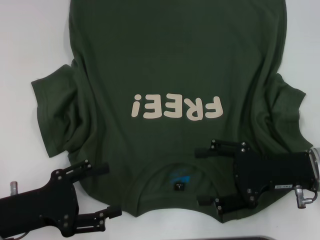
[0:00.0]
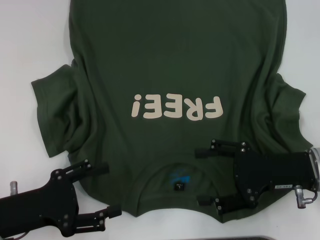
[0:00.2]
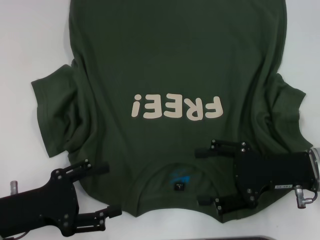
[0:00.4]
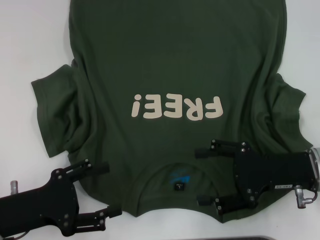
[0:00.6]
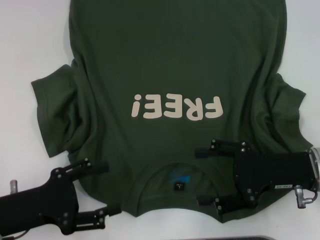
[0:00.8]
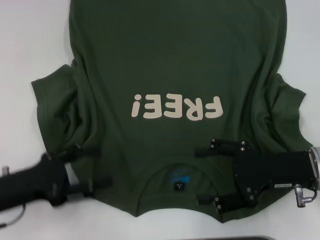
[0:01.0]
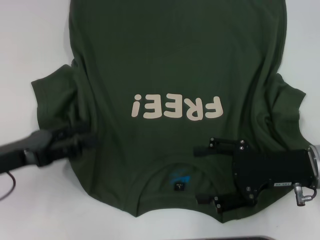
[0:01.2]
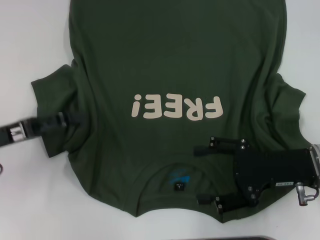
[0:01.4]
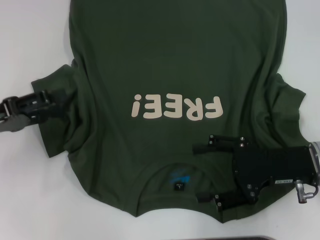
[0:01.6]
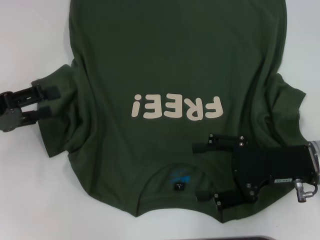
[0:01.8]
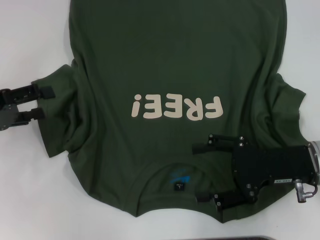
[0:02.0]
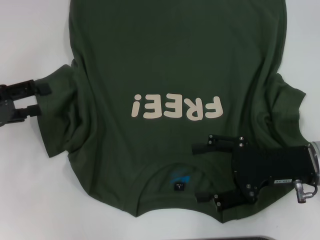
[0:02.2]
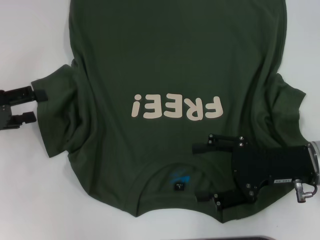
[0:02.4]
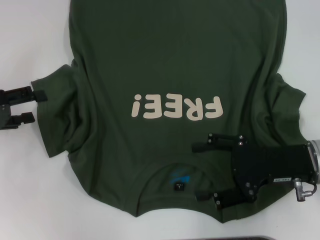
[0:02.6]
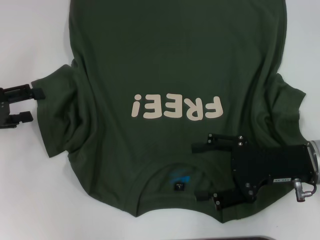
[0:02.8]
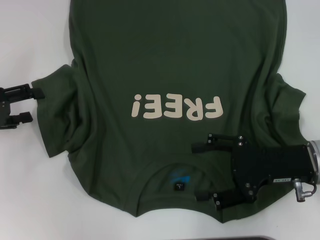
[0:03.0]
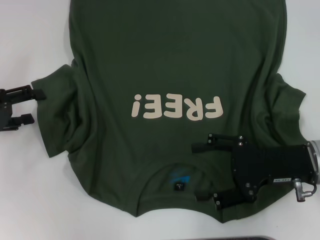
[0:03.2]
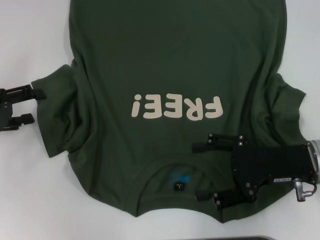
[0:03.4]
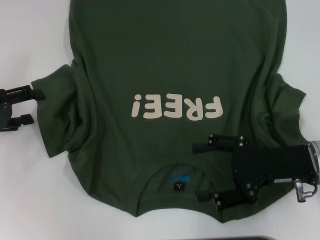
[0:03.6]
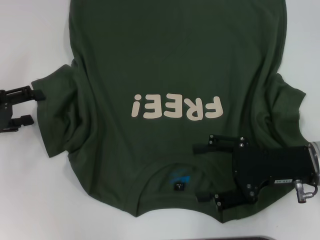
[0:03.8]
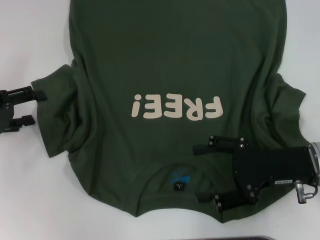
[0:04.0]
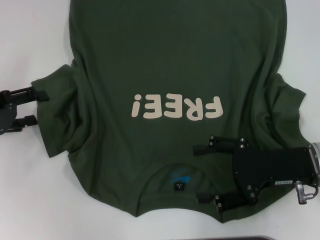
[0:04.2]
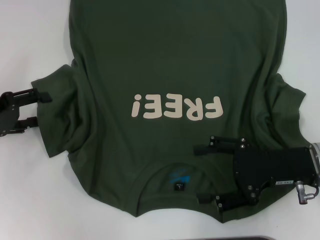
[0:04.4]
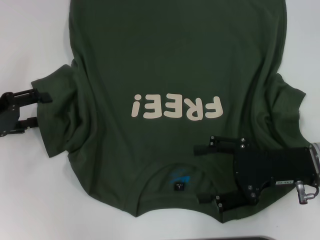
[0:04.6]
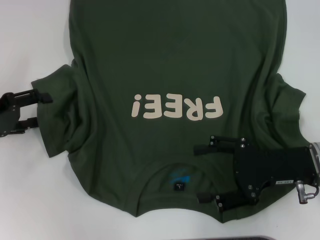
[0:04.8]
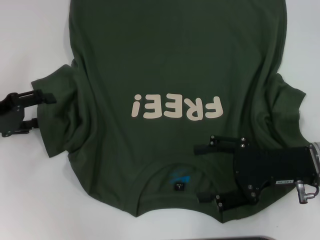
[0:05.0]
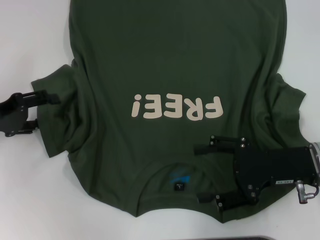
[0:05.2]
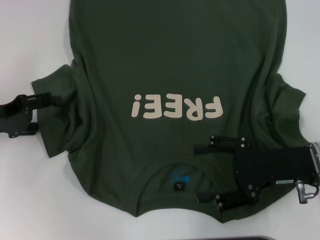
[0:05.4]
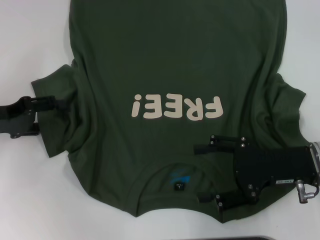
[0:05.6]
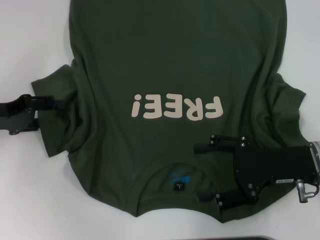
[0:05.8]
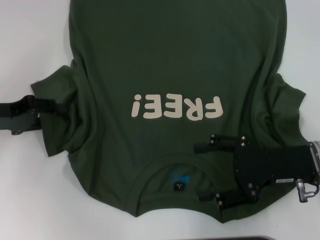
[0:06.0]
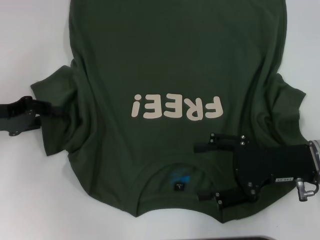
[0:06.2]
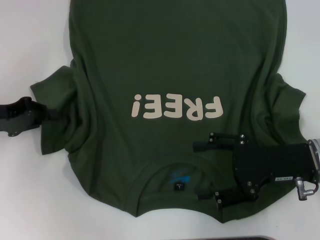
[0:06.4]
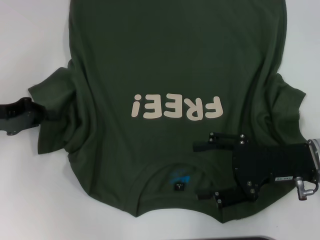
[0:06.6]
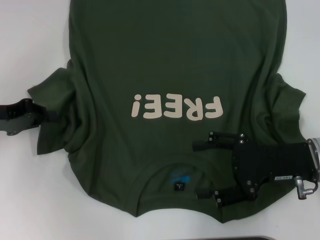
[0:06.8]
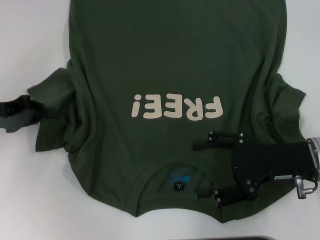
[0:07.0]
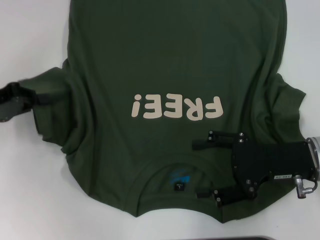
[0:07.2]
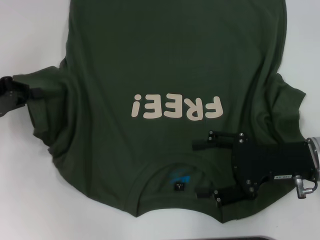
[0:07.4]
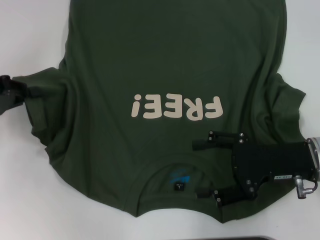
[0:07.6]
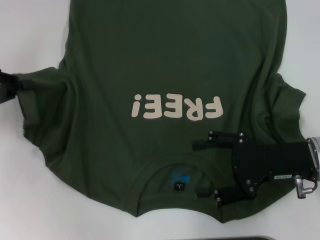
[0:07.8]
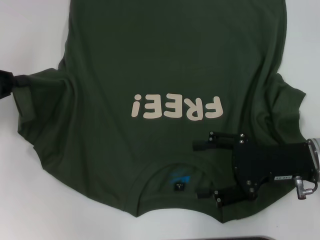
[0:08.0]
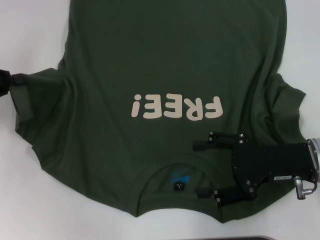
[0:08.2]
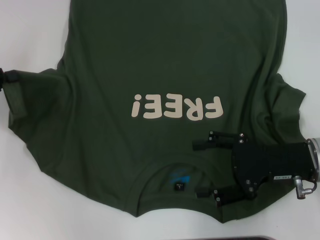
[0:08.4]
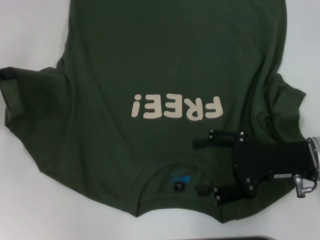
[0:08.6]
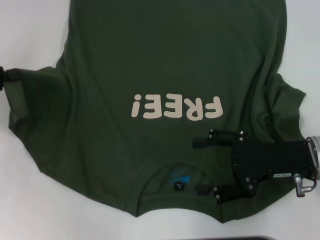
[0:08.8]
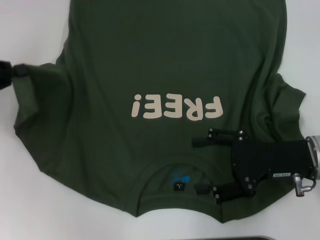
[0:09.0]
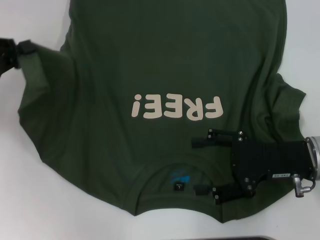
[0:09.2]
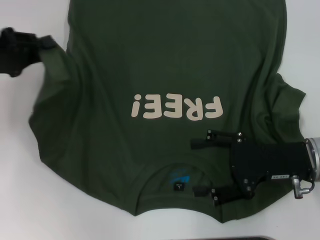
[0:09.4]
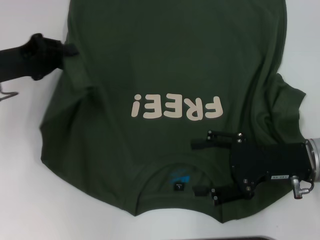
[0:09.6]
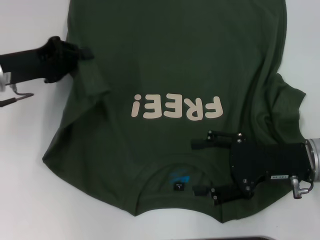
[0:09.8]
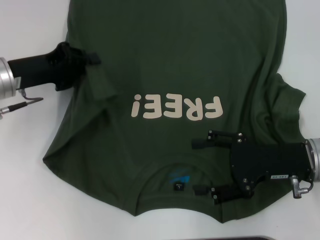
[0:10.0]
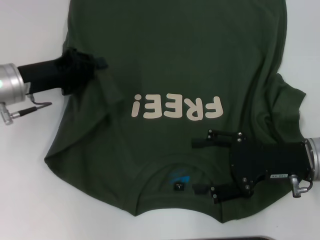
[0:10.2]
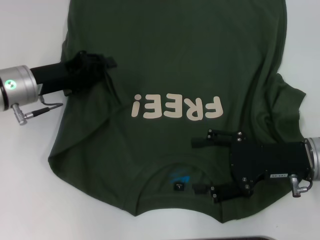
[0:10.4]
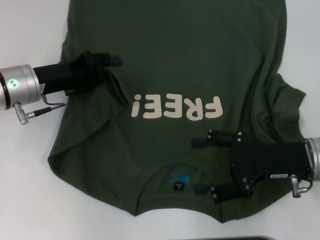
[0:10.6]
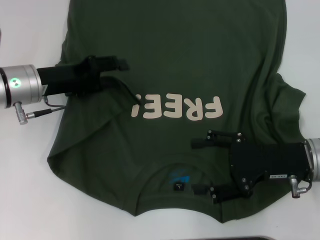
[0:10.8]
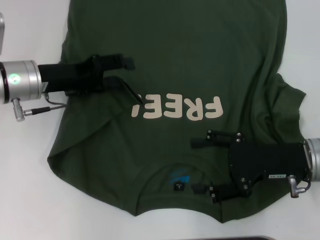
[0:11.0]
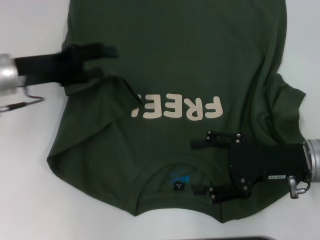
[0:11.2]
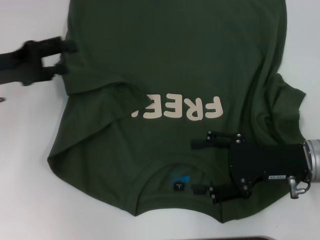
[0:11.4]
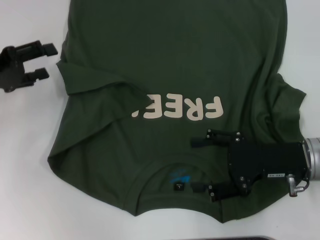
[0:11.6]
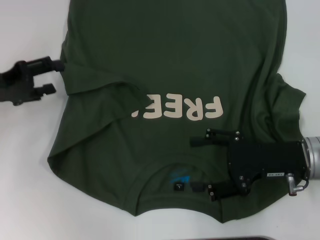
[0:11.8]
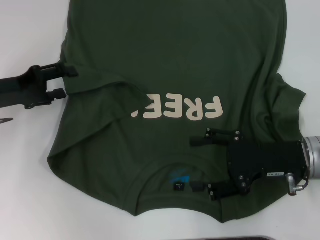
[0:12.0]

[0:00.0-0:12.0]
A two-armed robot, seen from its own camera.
0:00.0 to 0:01.6: The left gripper shifts roughly 10 cm forward, to the left and upward.
0:03.0 to 0:06.0: There are only small adjustments of the grippers.
0:06.0 to 0:07.6: The left gripper closes up.
0:07.6 to 0:09.0: The grippers make only small movements.
0:09.0 to 0:10.4: The left gripper travels to the right by some 10 cm.
0:10.4 to 0:12.0: The left gripper travels to the left by approximately 5 cm, and opens.

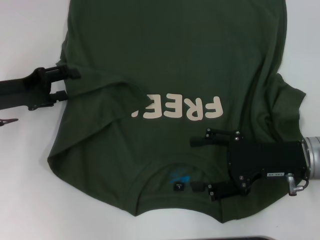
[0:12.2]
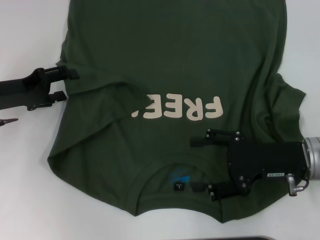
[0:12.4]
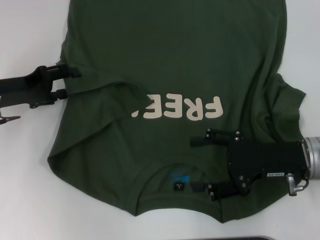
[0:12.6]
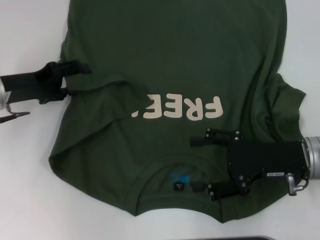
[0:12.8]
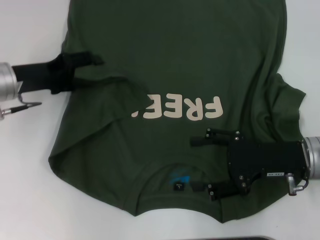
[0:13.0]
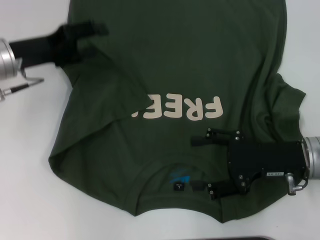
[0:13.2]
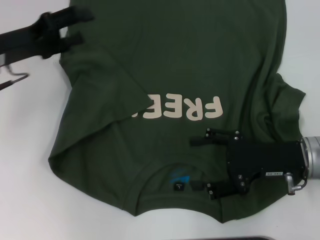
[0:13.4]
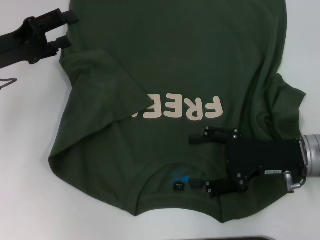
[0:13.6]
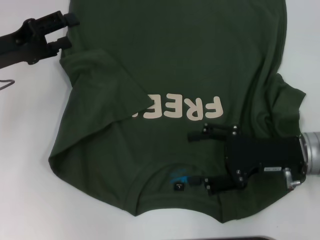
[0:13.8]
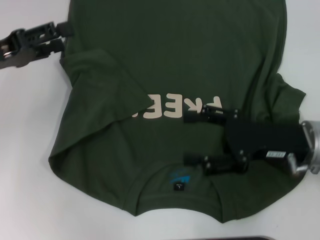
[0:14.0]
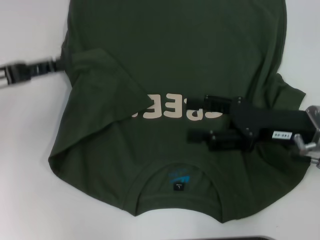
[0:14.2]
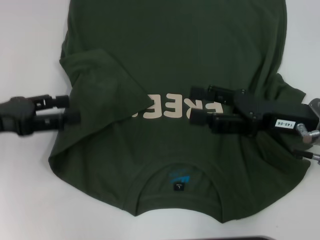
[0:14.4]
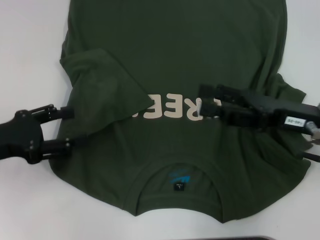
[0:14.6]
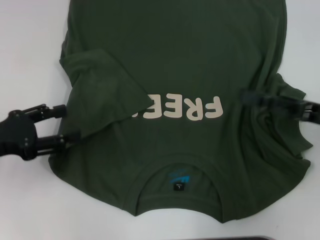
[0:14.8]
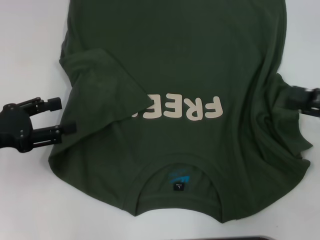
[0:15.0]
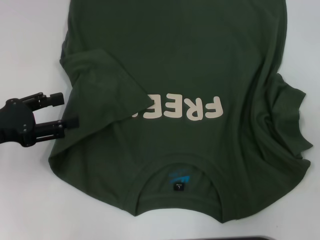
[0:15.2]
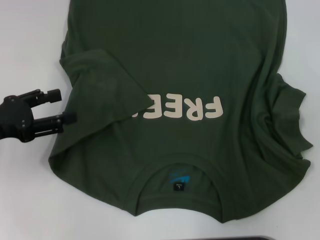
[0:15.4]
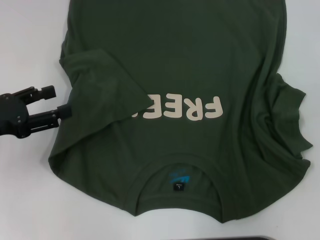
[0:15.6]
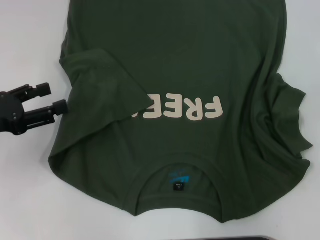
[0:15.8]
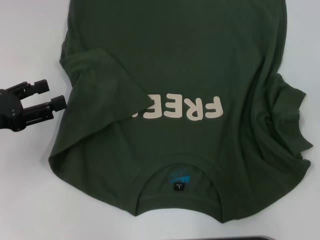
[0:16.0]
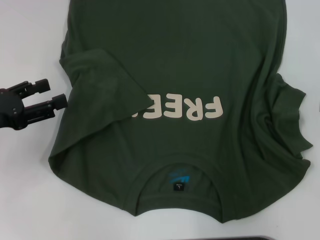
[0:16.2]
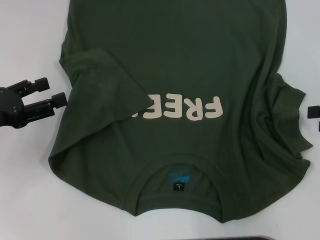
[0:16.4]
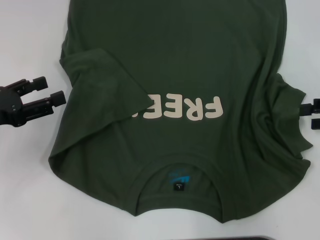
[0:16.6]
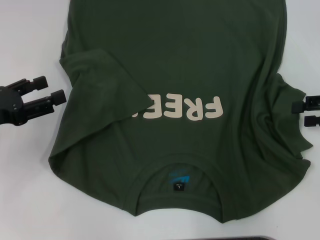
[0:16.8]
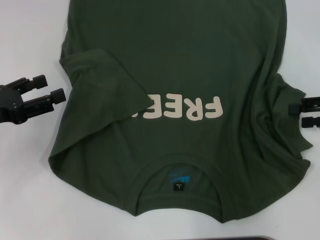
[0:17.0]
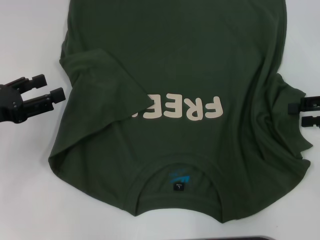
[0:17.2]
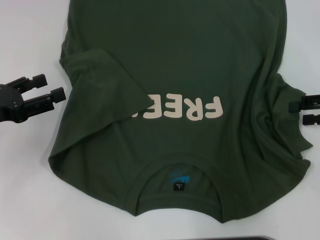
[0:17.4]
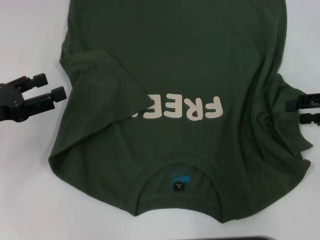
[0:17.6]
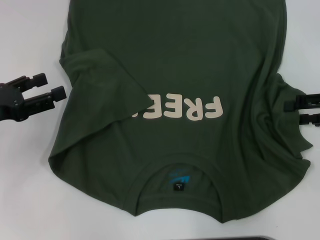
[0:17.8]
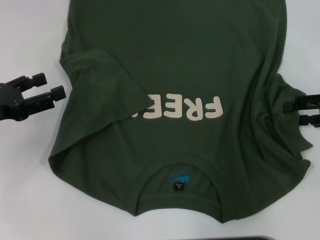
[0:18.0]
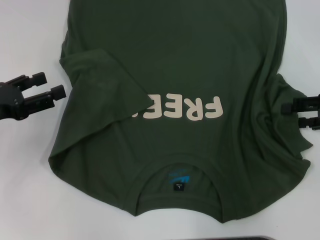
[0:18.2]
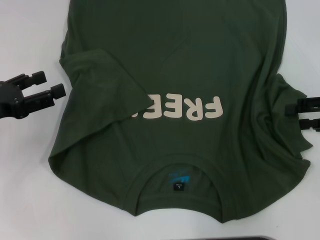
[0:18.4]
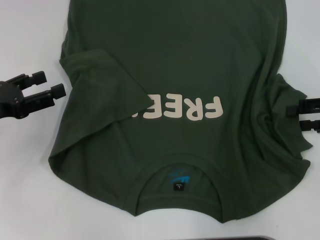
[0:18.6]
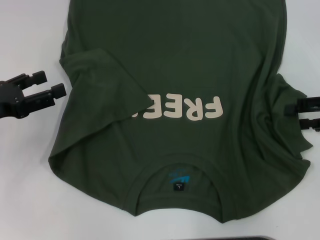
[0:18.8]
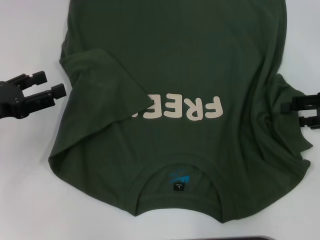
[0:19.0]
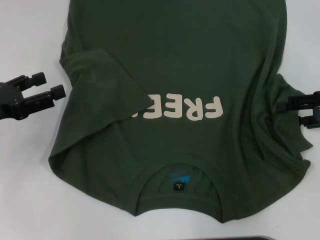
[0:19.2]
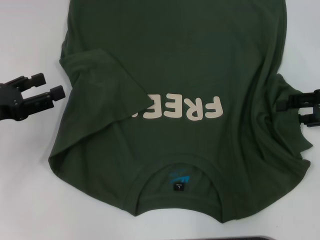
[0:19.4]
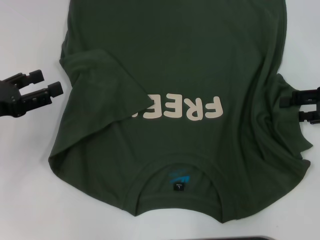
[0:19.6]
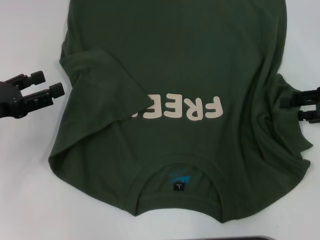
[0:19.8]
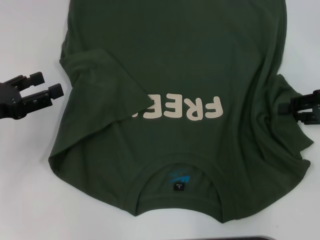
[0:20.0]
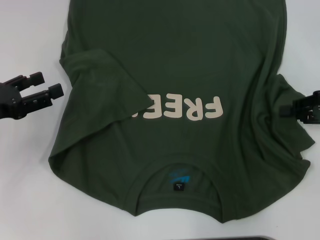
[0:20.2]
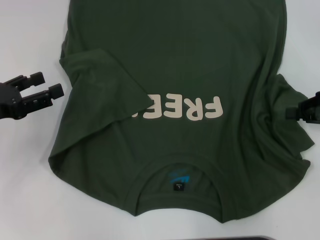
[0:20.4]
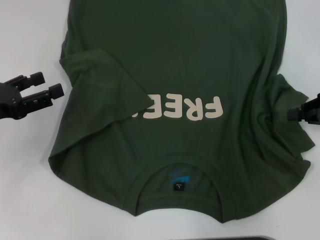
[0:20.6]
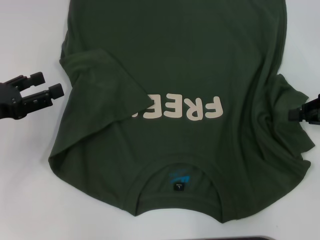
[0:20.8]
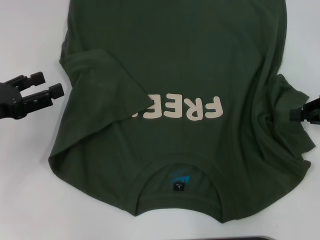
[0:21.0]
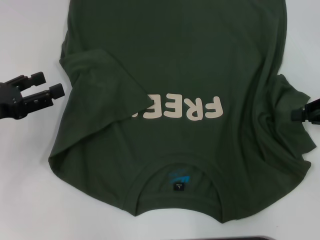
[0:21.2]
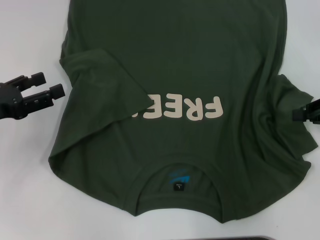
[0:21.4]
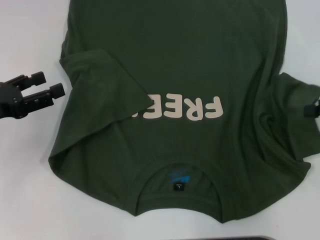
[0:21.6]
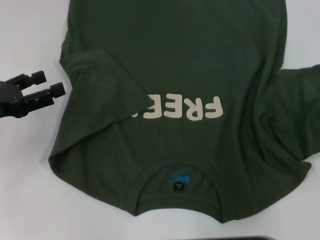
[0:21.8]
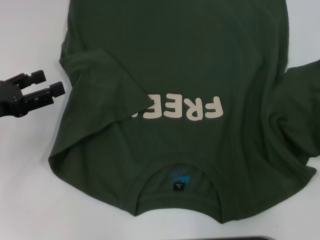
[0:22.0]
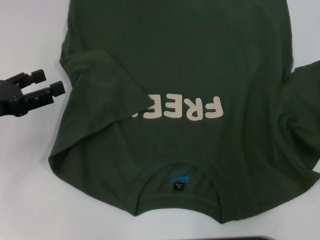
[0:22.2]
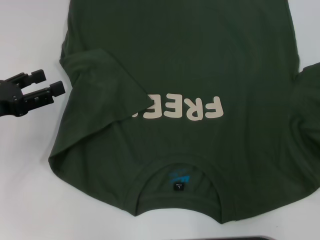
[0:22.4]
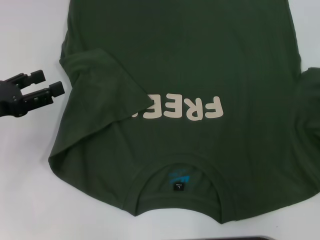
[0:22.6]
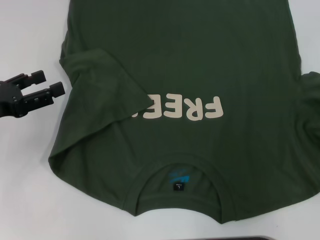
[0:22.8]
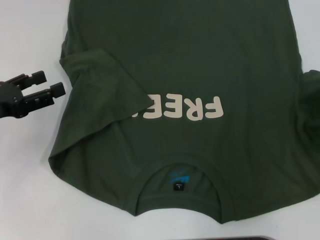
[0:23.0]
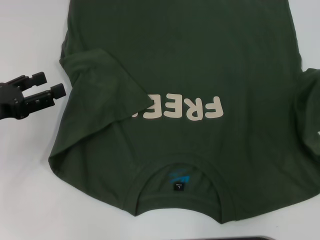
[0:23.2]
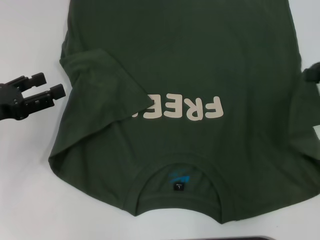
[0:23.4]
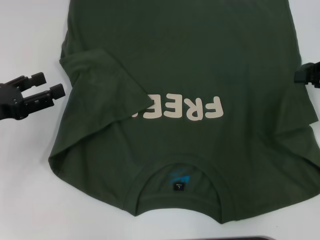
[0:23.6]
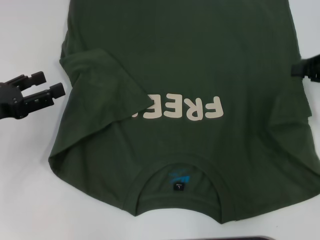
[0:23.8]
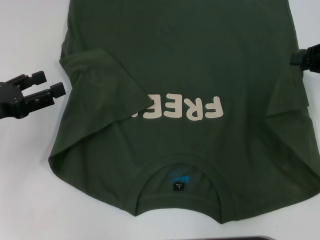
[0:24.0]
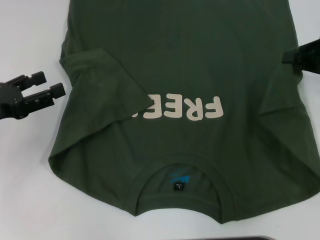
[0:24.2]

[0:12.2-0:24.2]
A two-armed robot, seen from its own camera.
0:13.8 to 0:15.2: The right gripper shifts about 15 cm to the right; the left gripper travels backward by roughly 10 cm.
0:16.6 to 0:18.2: The grippers move only a little.
0:18.2 to 0:19.8: The two grippers keep their place.
0:19.8 to 0:21.2: The right gripper closes its fingers.
0:21.2 to 0:22.6: The right gripper goes roughly 10 cm to the right and upward.
0:22.6 to 0:24.2: The right gripper goes roughly 10 cm to the left and forward.
